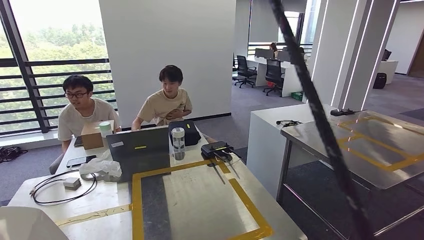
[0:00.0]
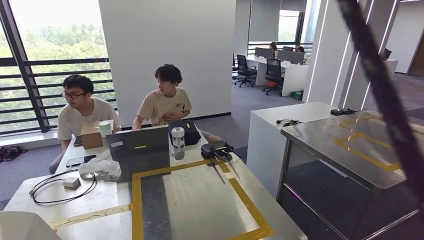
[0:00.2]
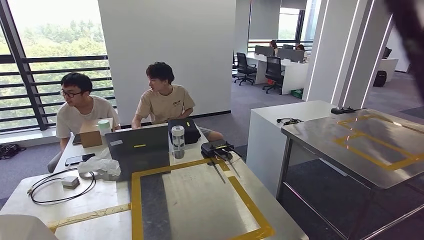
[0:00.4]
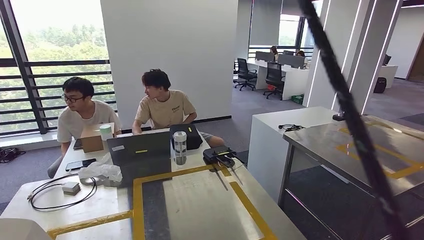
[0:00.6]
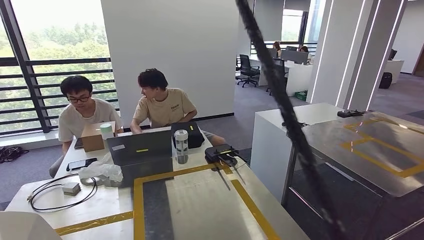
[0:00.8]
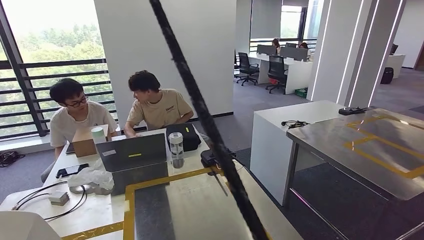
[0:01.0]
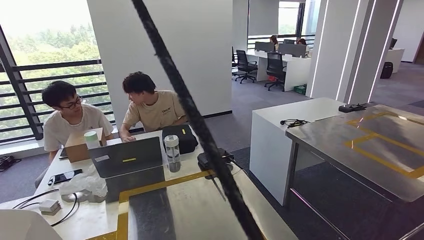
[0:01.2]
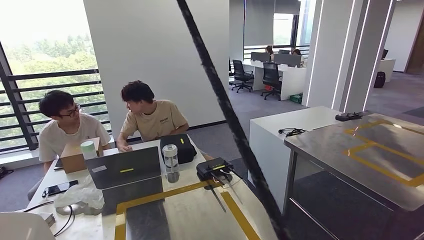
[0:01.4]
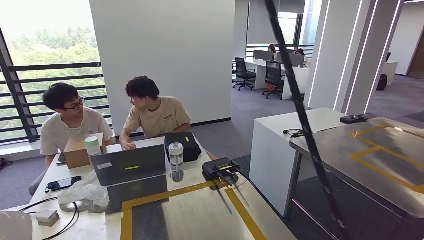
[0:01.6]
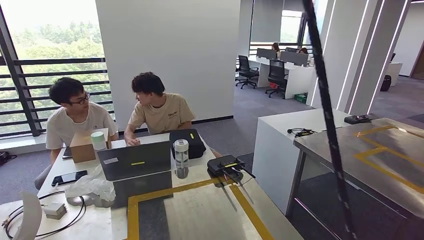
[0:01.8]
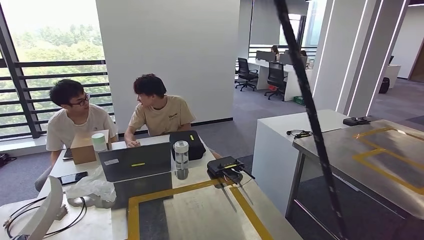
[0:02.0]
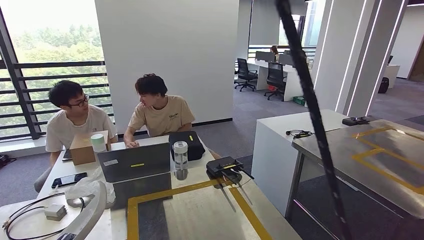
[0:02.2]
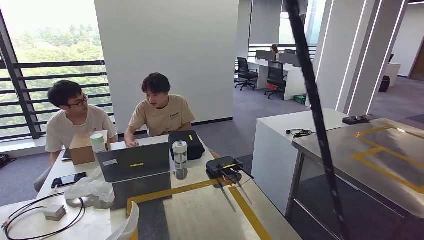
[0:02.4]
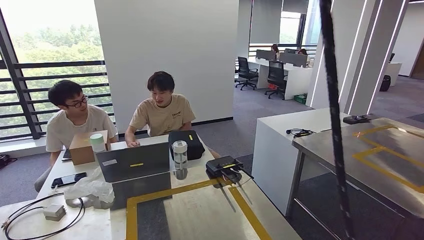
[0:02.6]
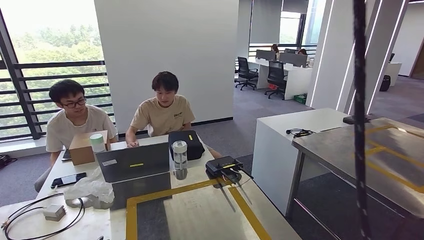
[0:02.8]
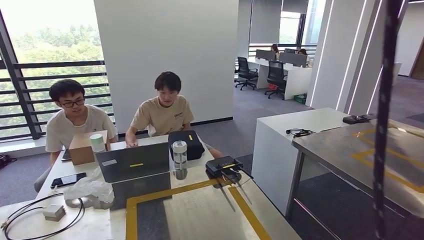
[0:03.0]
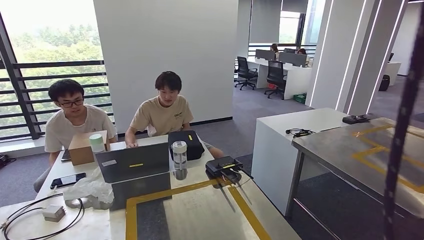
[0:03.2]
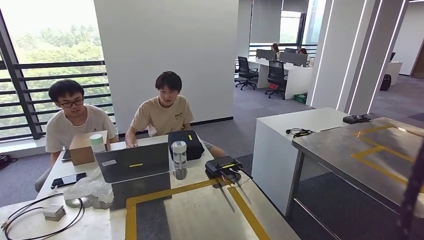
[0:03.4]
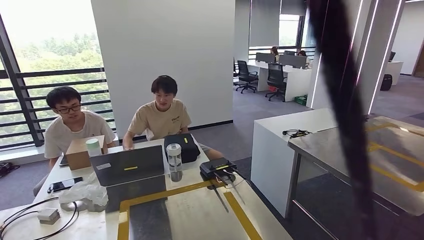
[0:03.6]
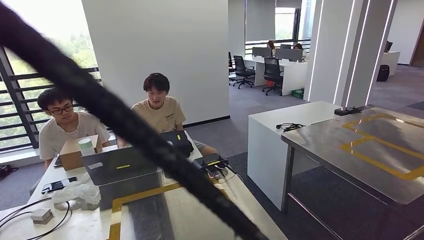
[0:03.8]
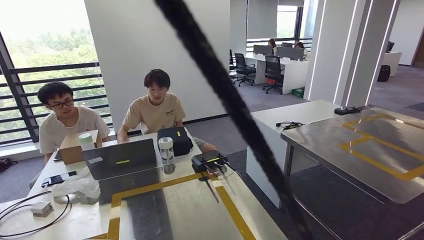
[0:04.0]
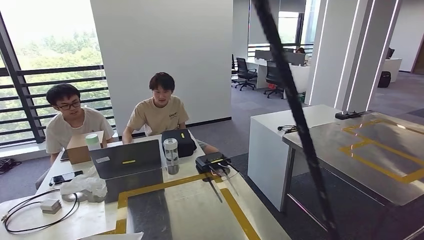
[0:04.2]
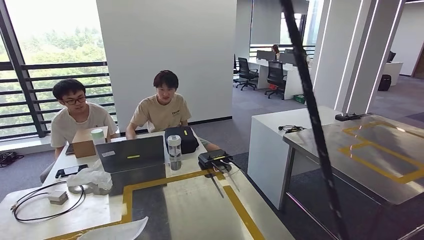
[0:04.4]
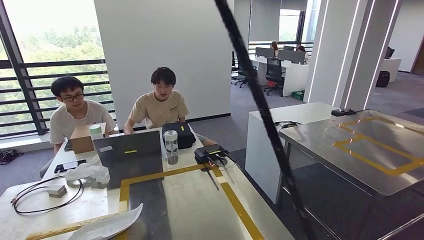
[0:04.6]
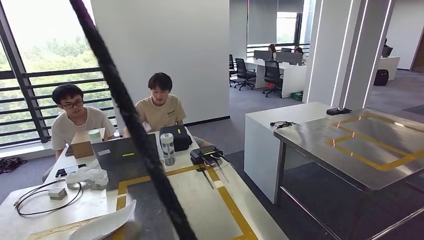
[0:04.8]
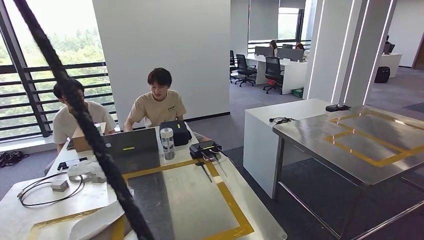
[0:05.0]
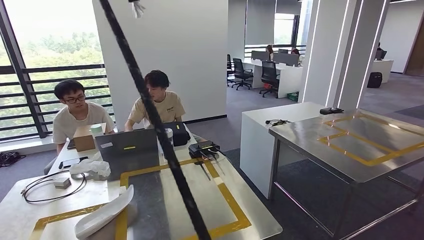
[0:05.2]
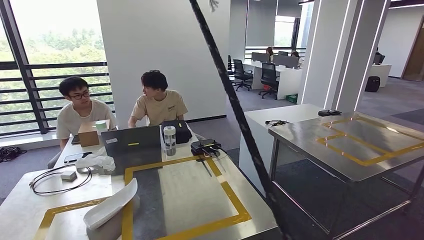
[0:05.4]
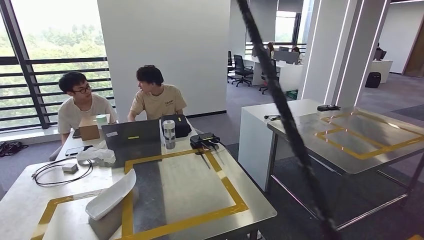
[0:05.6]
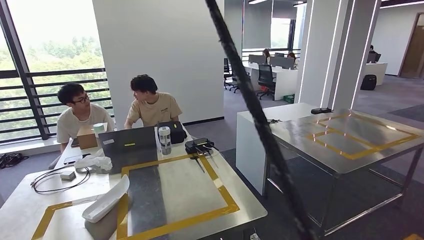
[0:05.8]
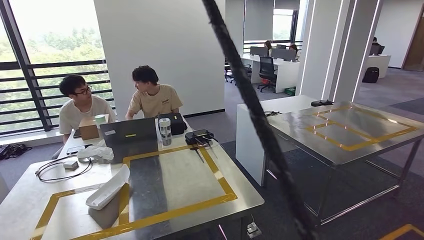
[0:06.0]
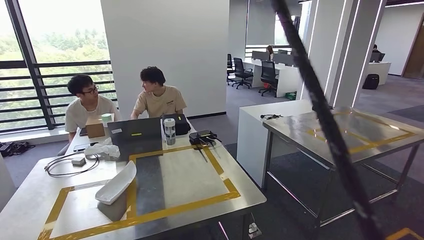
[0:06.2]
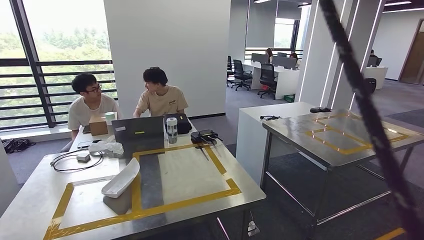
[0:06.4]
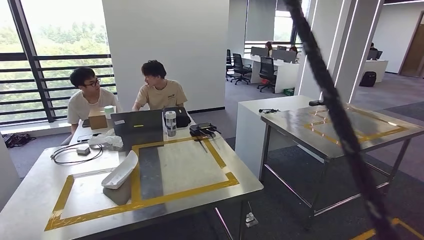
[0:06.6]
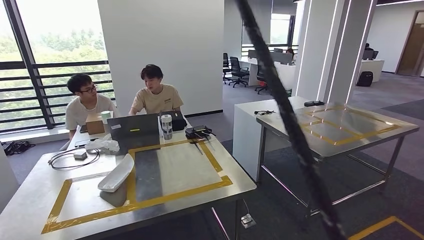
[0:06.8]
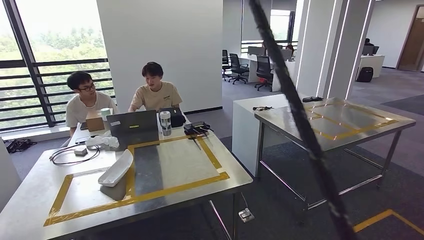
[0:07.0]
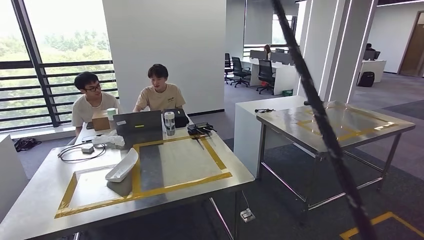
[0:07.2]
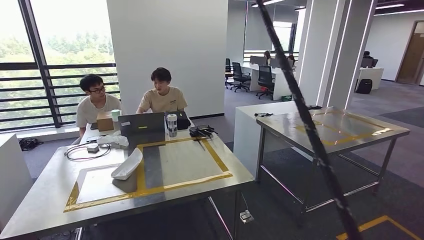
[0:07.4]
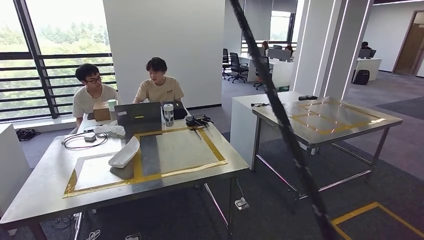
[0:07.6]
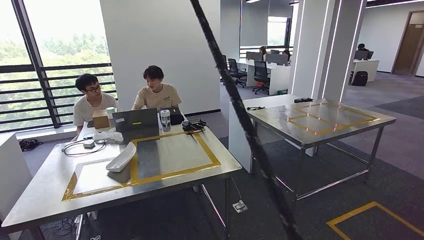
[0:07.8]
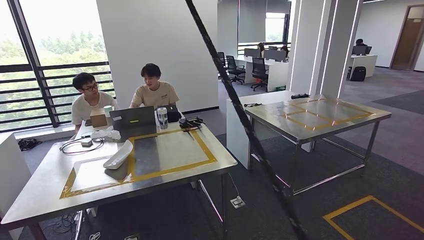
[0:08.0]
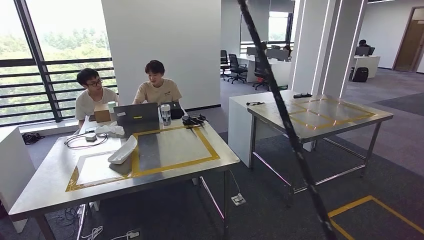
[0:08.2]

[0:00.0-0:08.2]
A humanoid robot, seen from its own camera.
Step, 0:00.0 to 0:04.4: Insert the small component into the corresponding slot on the workbench.
Step, 0:04.6 to 0:08.2: Move to the initial position at the workbench.

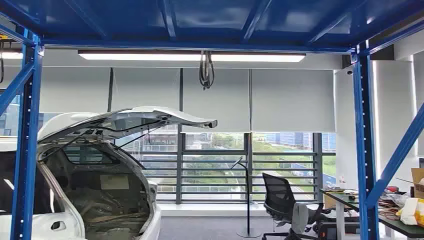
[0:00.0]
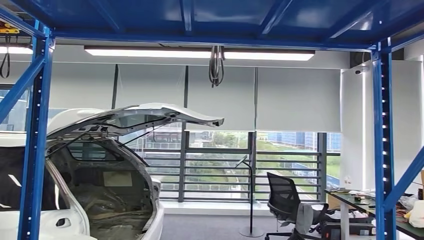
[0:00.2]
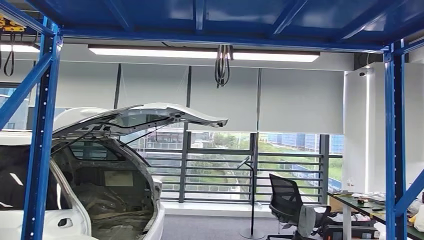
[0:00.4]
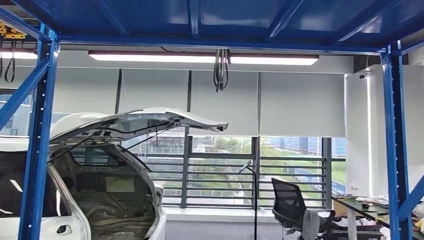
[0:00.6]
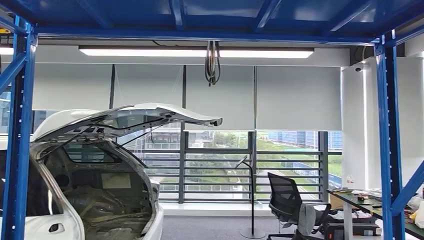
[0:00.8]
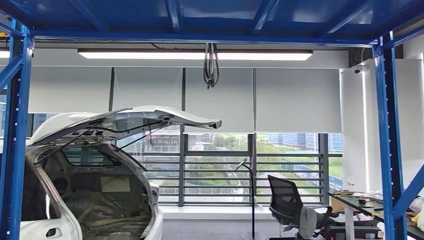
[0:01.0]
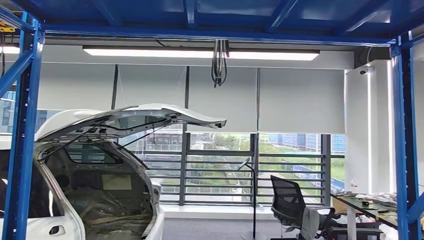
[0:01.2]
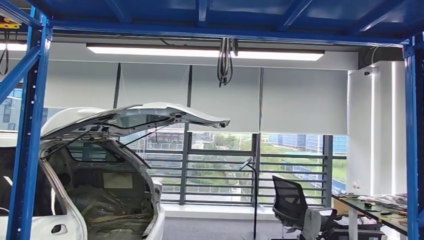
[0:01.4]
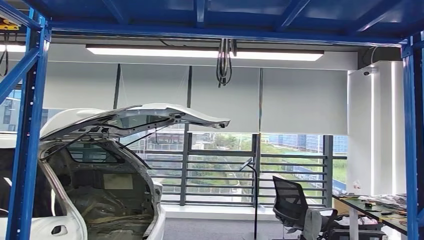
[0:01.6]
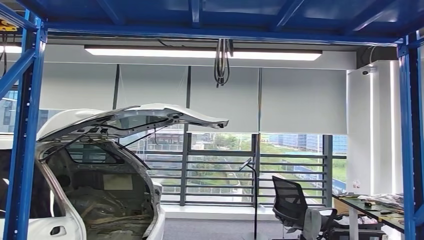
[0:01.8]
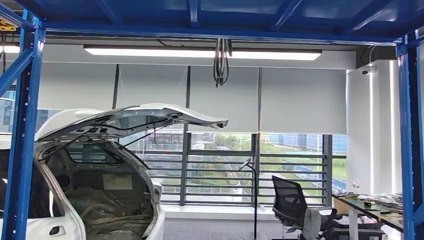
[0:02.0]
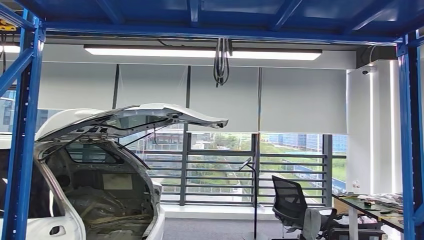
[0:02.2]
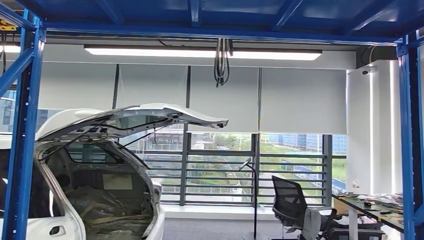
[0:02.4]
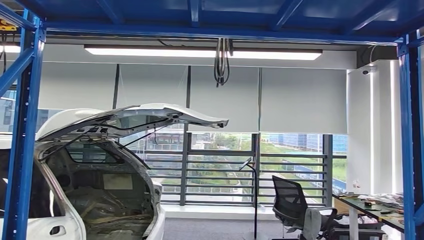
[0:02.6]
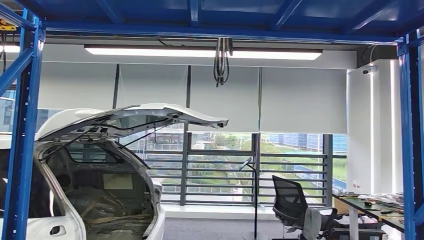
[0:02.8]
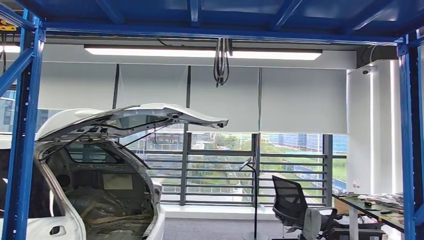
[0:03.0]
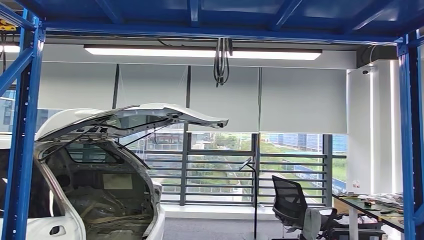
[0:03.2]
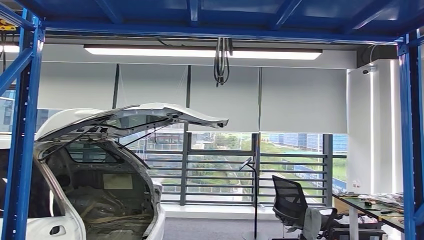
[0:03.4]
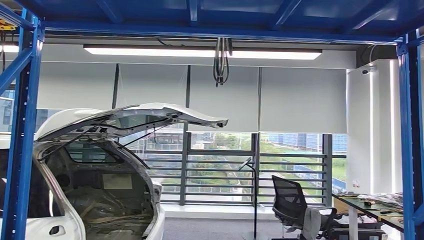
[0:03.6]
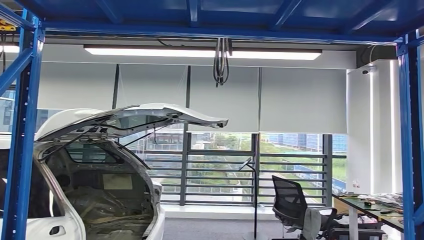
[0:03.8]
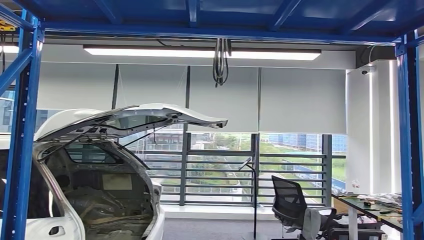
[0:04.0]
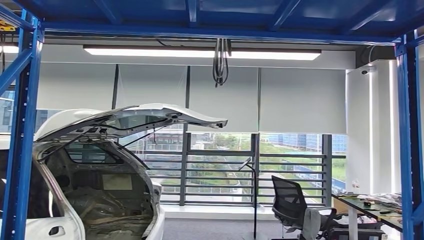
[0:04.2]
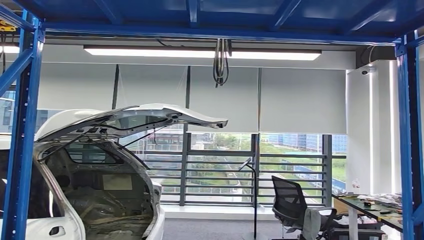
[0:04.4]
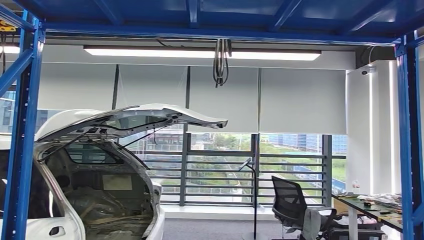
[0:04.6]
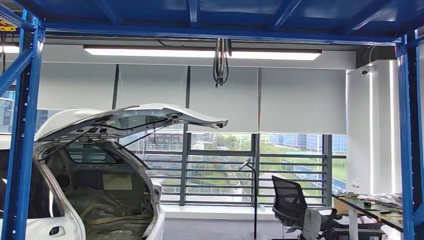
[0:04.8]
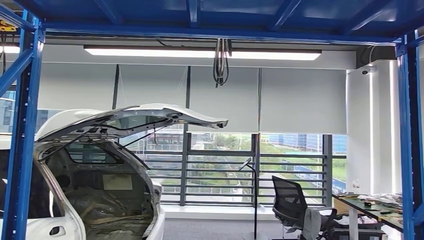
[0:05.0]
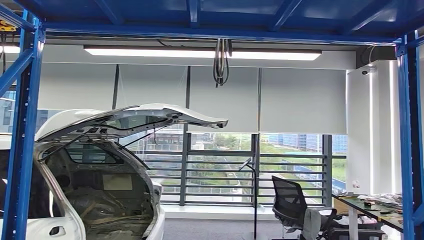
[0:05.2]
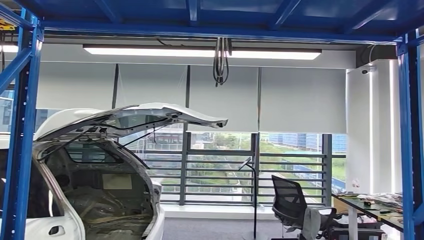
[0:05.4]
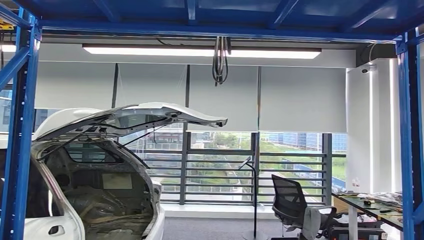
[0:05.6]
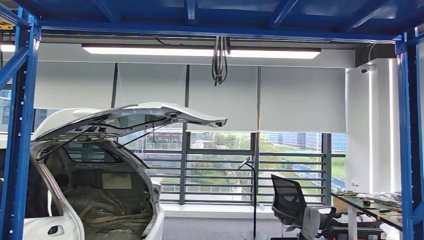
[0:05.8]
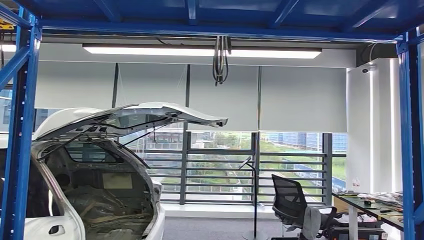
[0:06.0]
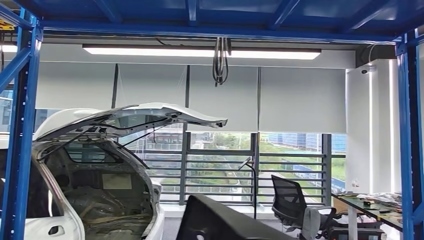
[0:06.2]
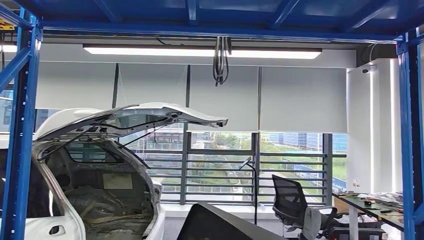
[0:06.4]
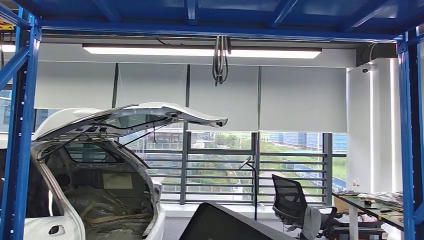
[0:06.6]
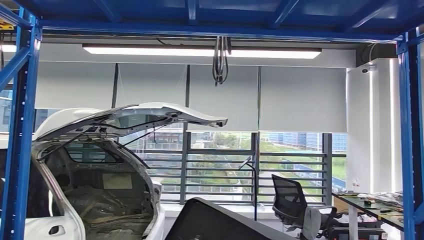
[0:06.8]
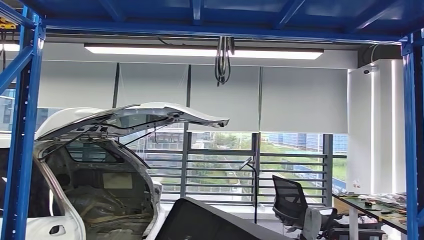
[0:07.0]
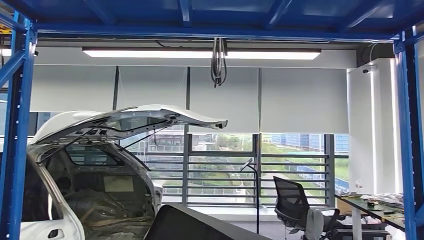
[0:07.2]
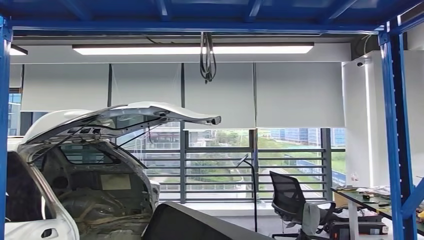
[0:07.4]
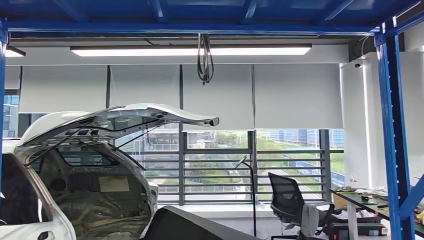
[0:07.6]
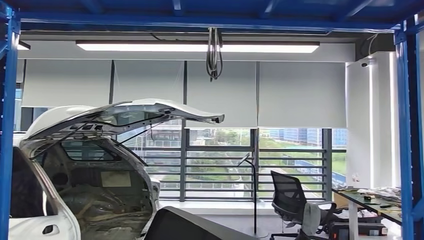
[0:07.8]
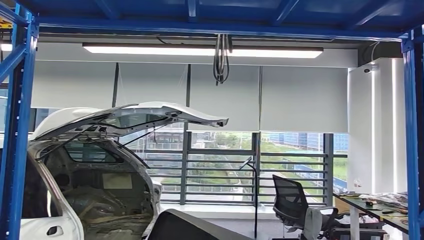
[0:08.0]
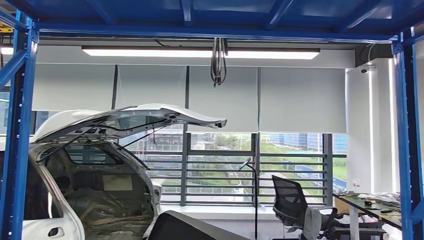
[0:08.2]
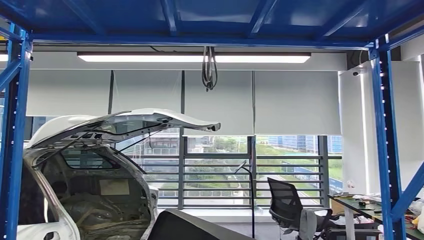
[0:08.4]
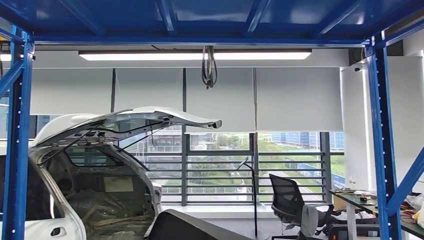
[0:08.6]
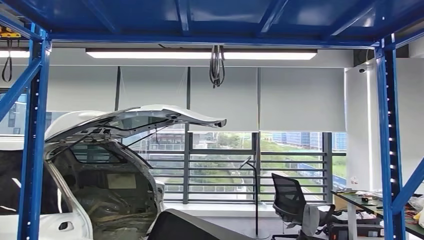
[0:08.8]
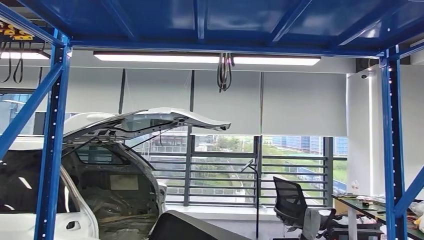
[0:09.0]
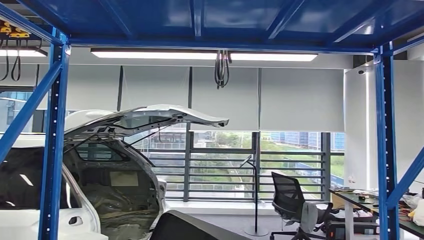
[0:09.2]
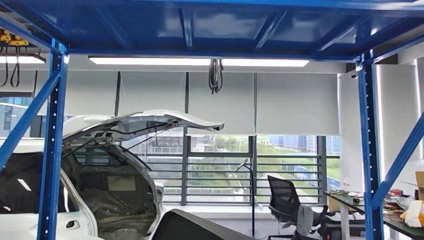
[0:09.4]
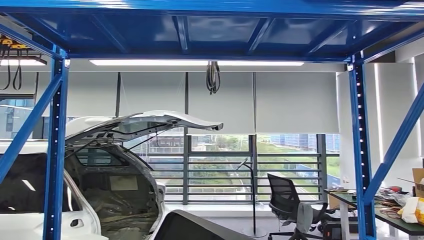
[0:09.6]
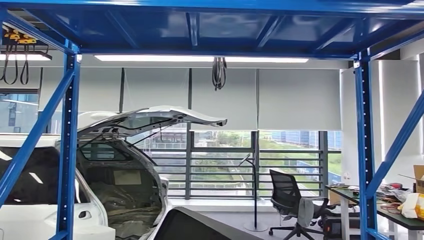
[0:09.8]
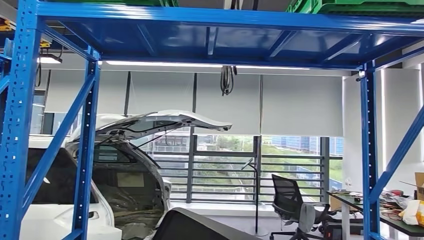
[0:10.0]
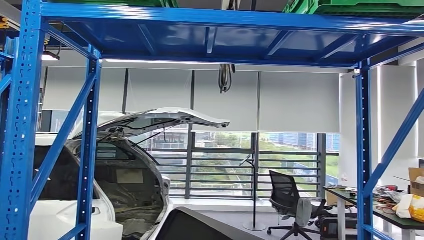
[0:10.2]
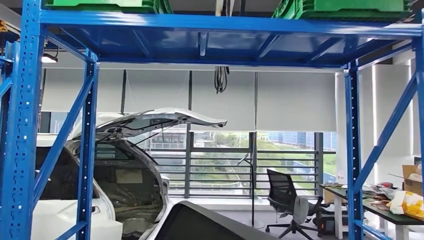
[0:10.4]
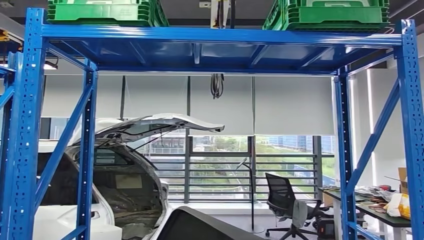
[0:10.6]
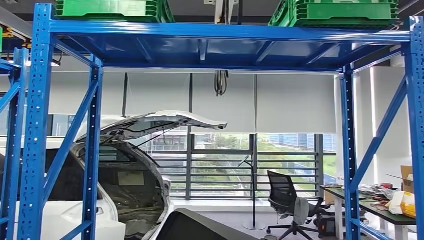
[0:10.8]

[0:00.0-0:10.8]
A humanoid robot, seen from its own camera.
Step, 0:00.0 to 0:05.6: Pick up the small component from the shelf.
0:01.6 to 0:03.0: The right hand is displaced forward by approximately 5 cm.
0:03.0 to 0:04.6: The right hand shifts roughly 20 cm to the left and forward.
0:04.6 to 0:06.2: The right hand heads upward and backward, covering about 15 cm.
